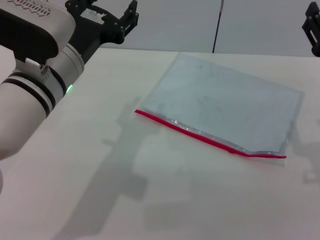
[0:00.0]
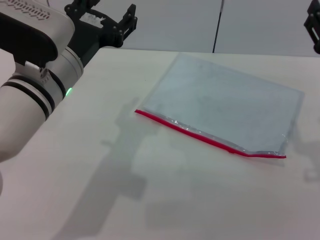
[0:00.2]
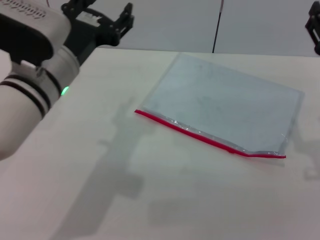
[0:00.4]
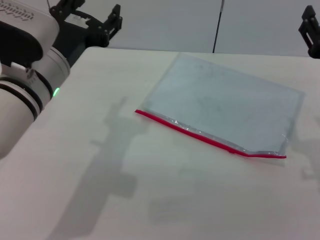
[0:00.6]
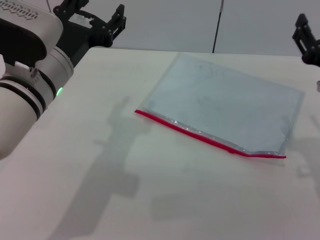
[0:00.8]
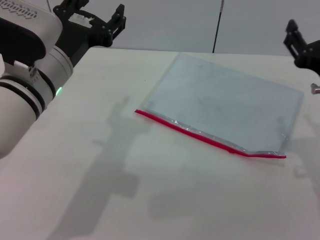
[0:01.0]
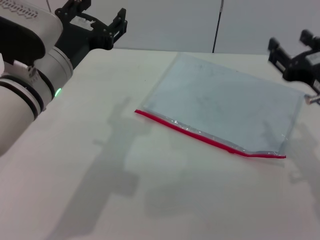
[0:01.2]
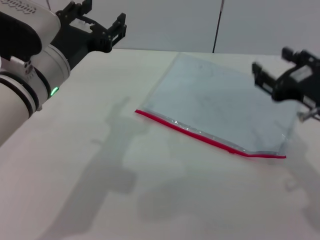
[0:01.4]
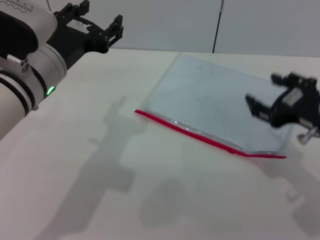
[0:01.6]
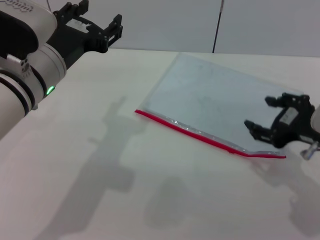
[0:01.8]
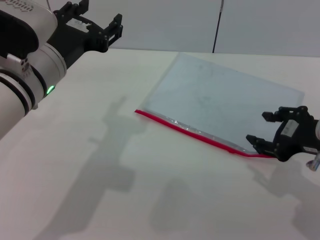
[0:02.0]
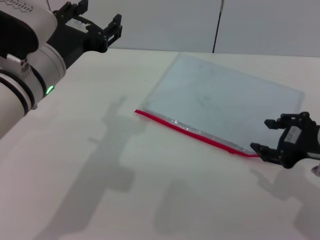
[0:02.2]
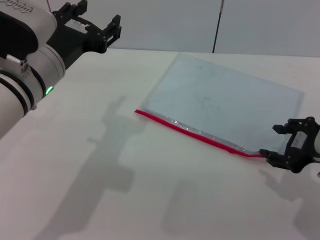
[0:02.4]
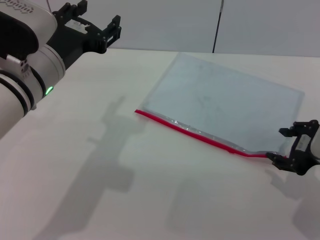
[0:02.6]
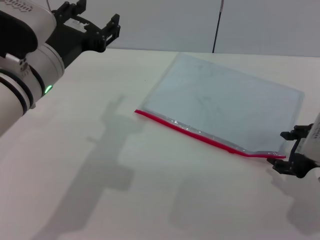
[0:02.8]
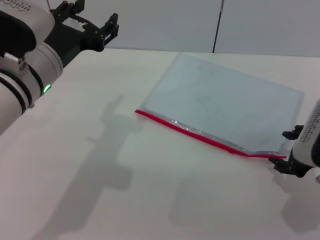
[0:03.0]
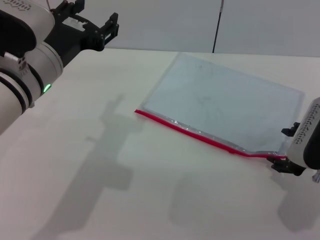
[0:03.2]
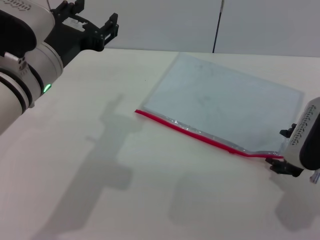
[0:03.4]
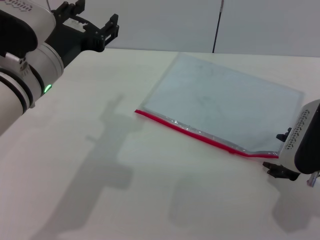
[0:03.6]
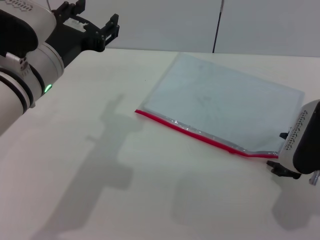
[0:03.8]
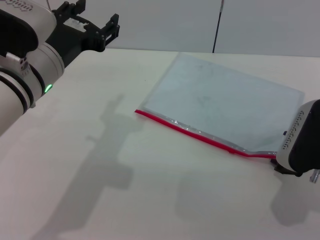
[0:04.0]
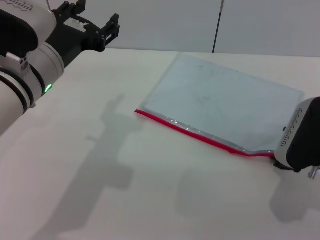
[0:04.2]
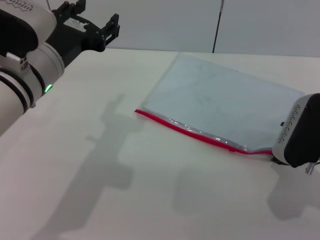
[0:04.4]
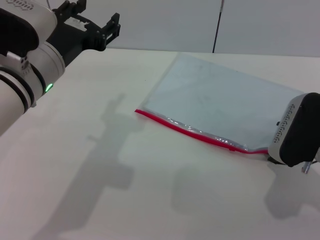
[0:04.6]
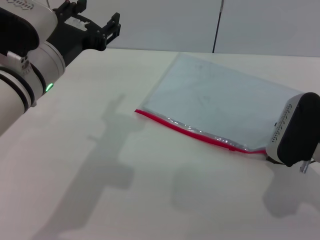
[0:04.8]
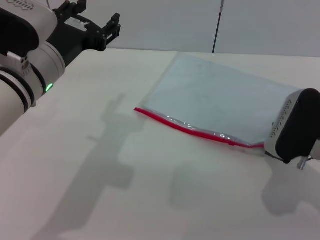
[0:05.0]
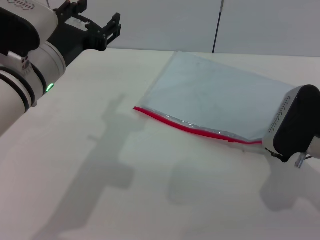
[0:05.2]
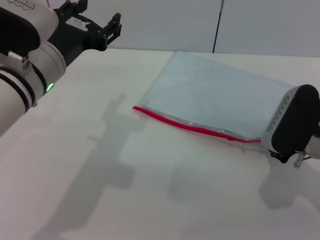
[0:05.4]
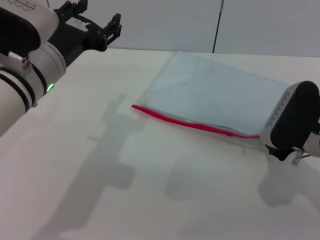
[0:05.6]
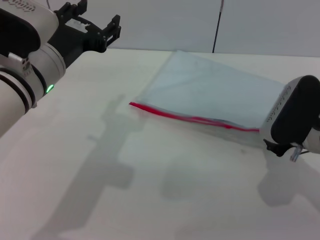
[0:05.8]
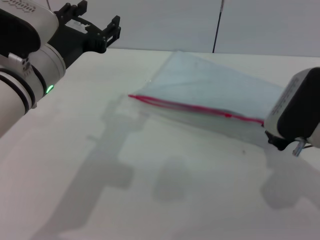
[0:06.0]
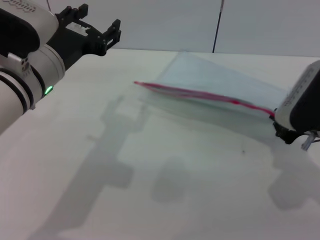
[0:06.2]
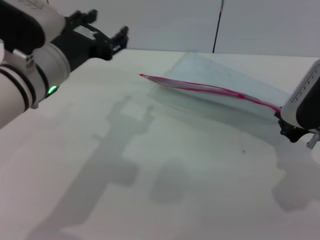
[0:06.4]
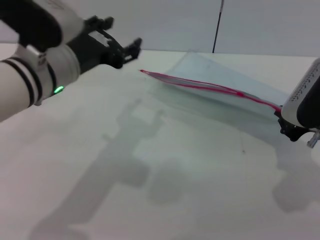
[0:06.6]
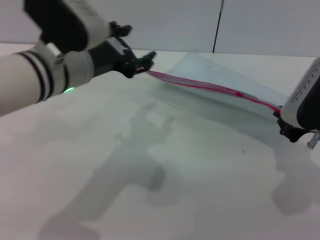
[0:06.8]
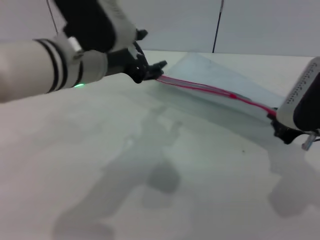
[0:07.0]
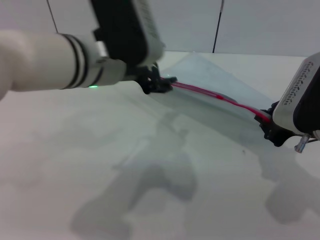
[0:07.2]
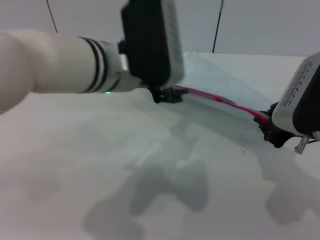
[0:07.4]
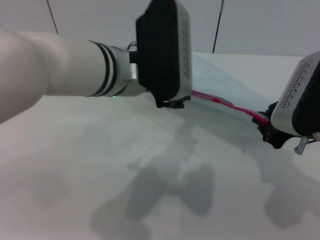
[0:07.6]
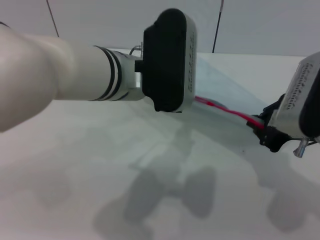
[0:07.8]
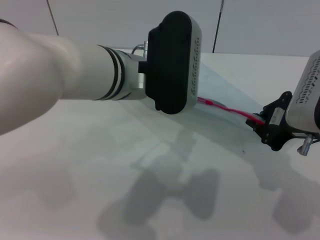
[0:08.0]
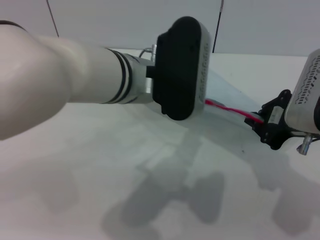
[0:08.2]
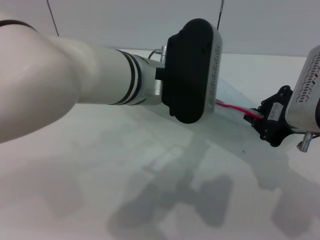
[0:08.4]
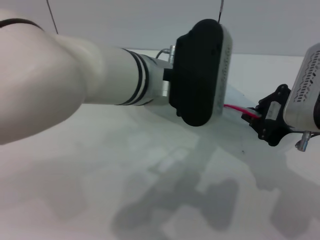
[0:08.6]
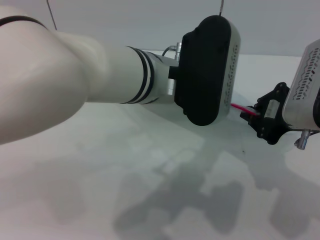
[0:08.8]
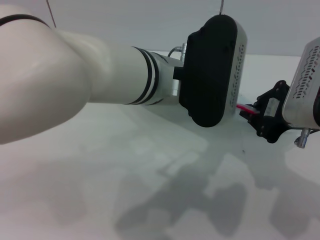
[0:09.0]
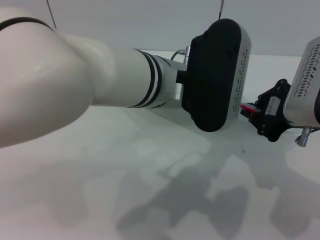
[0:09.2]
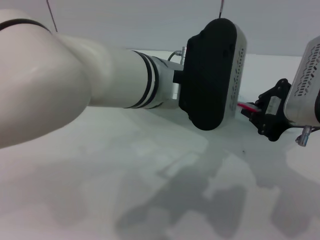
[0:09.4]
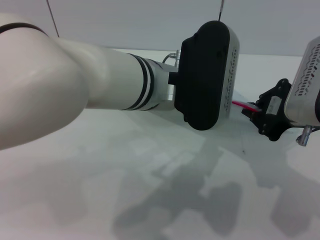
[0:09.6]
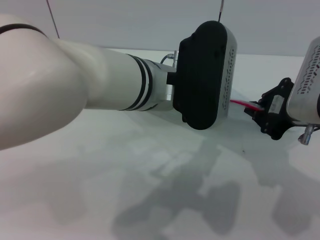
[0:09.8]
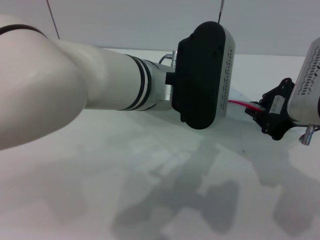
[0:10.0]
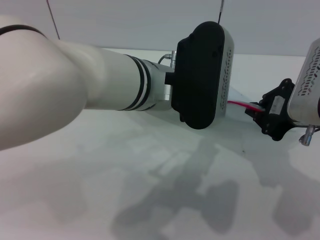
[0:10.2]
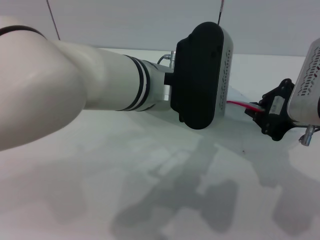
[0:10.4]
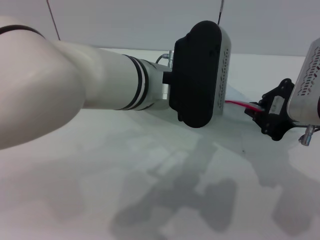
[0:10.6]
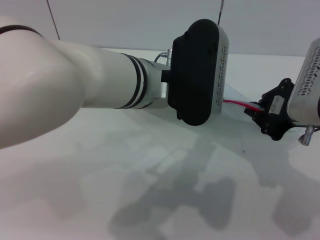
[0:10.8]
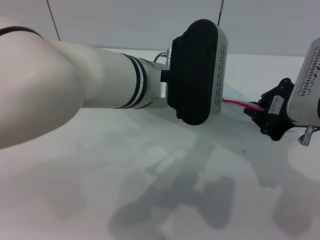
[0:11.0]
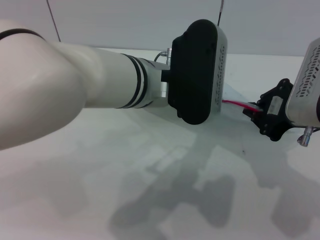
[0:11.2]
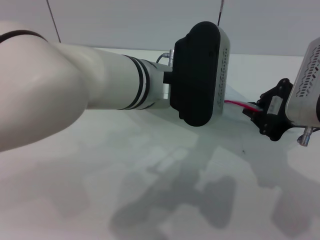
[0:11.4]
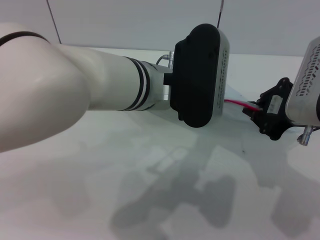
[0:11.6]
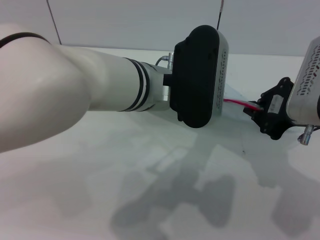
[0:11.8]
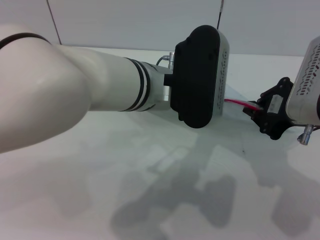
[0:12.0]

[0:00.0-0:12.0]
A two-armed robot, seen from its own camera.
Step, 0:00.0 to 0:07.8: Pick up the transparent plastic bag with the right gripper.
0:03.0 to 0:04.4: The grippers move only a little.
0:04.4 to 0:06.0: The right gripper closes up.
0:06.0 to 0:07.6: The left gripper is displaced to the right by about 10 cm. Meanwhile the right gripper ends up approximately 5 cm from where it was.
0:09.0 to 0:10.4: Neither gripper changes place.
0:10.4 to 0:12.0: Both grippers stay about where they are.

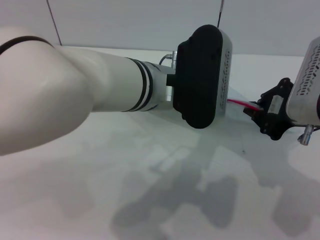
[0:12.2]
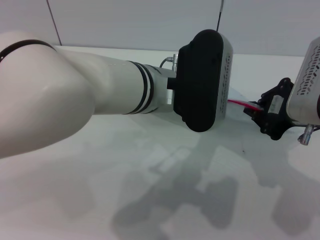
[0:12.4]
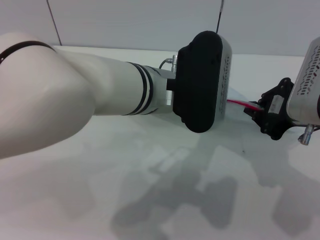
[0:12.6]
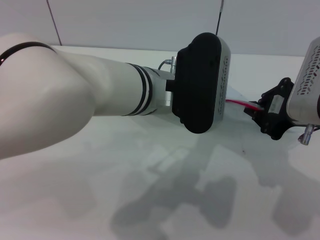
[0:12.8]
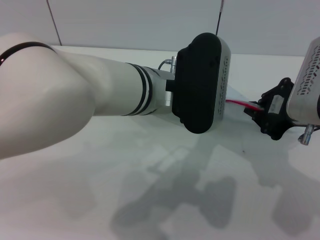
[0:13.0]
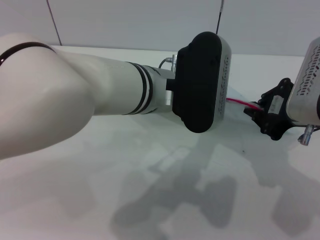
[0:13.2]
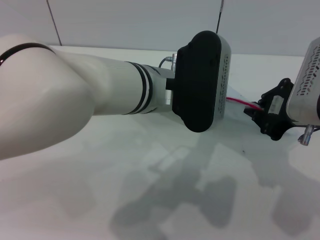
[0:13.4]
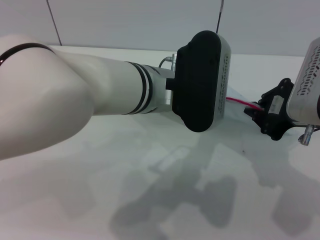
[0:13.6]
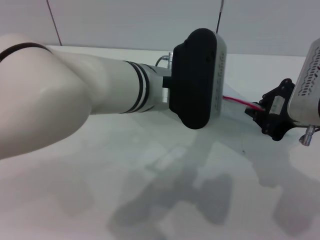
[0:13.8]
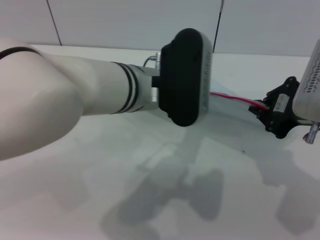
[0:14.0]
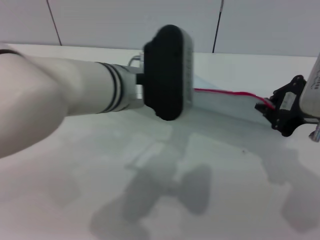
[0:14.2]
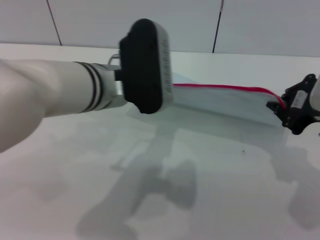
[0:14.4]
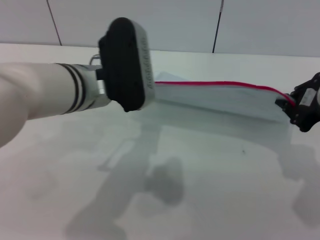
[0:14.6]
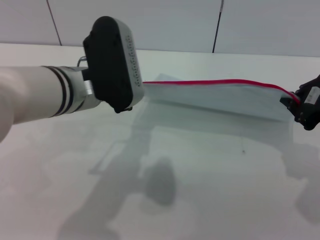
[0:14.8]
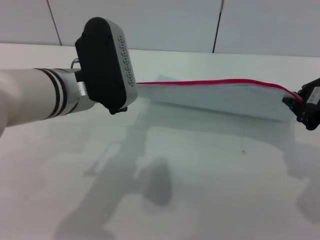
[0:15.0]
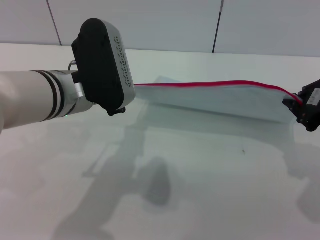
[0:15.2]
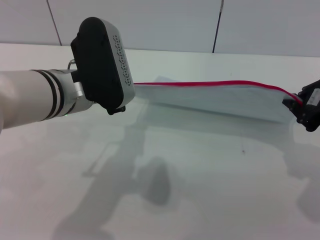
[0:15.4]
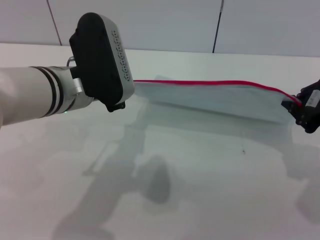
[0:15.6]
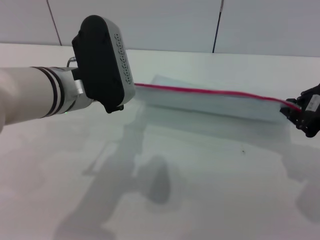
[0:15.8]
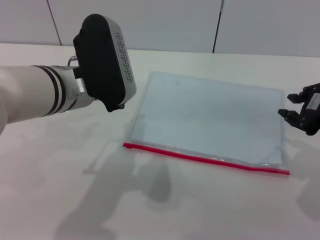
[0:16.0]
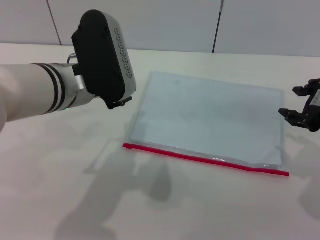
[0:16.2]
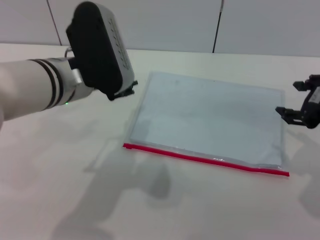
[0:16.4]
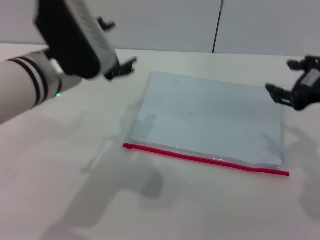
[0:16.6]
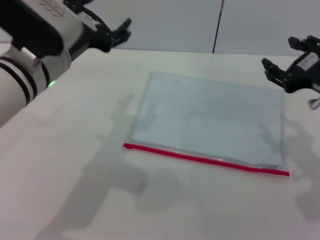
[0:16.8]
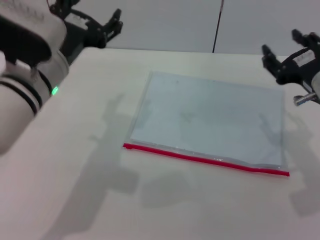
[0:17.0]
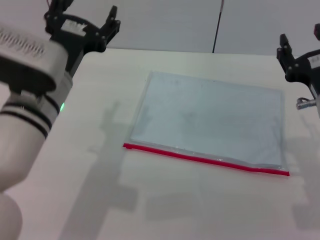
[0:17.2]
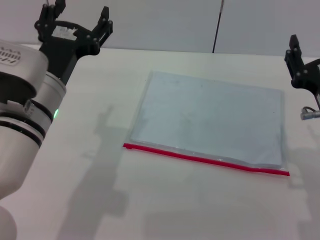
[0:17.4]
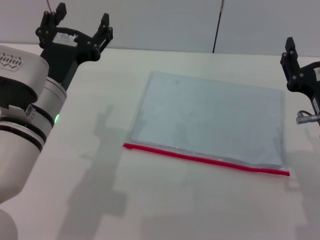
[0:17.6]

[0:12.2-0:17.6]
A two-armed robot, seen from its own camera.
Step, 0:12.2 to 0:15.6: Pulling up the zipper on the transparent plastic bag with the left gripper to close it.
Step, 0:16.0 to 0:16.4: Place the transparent plastic bag.
0:12.2 to 0:13.6: Neither gripper changes place.
0:13.6 to 0:15.0: The left gripper goes approximately 10 cm to the left.
0:15.0 to 0:16.2: The right gripper opens.
0:16.2 to 0:17.6: The right gripper heads downward, backward and to the left, covering some 10 cm, and opens up; the left gripper changes place by some 5 cm, and opens up.

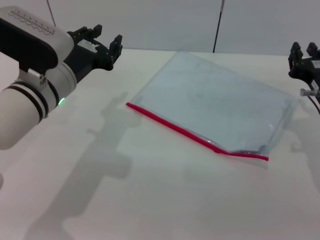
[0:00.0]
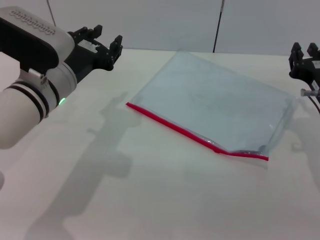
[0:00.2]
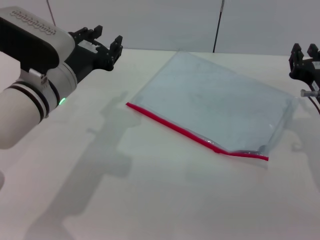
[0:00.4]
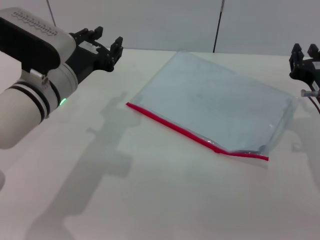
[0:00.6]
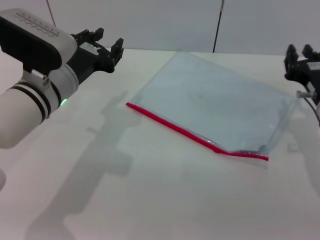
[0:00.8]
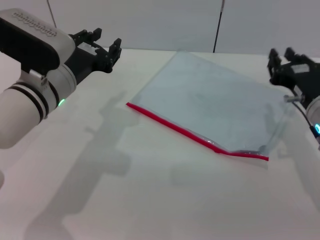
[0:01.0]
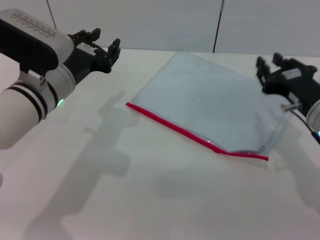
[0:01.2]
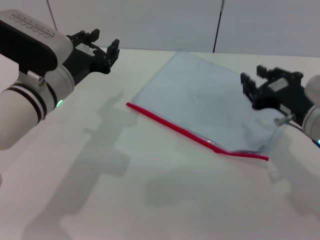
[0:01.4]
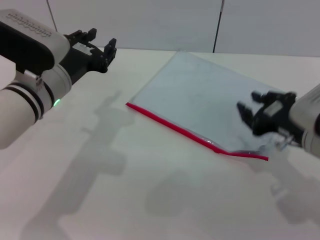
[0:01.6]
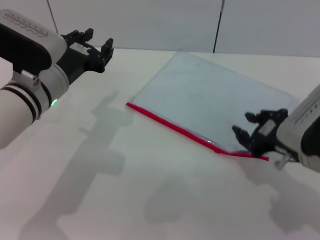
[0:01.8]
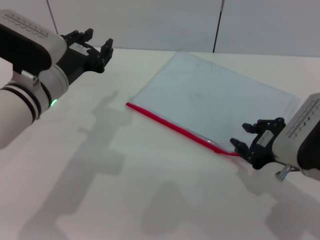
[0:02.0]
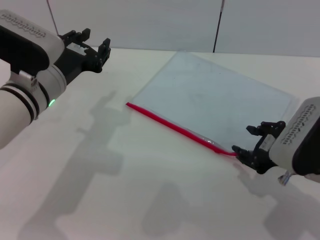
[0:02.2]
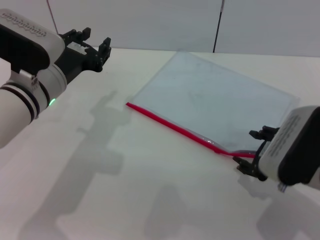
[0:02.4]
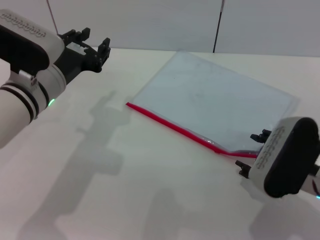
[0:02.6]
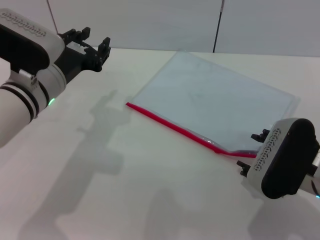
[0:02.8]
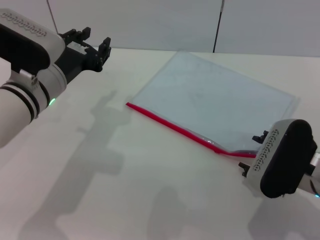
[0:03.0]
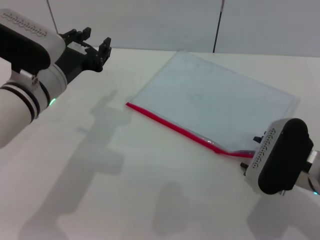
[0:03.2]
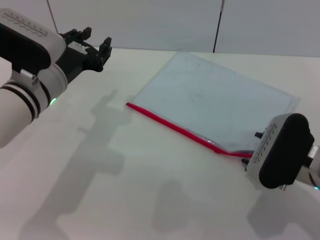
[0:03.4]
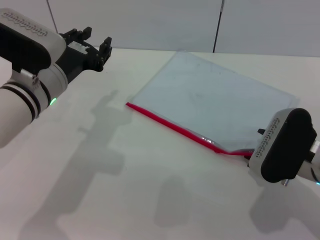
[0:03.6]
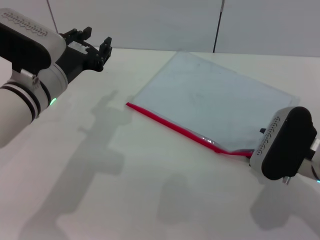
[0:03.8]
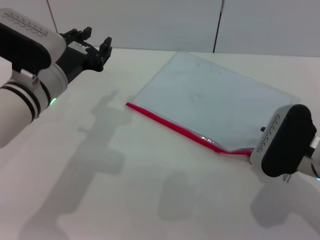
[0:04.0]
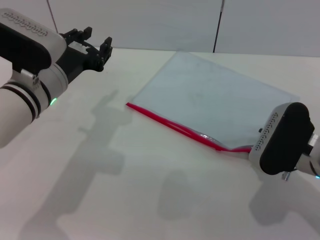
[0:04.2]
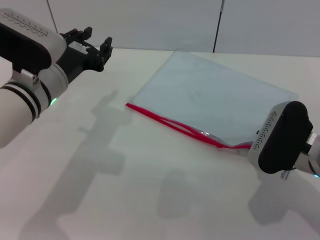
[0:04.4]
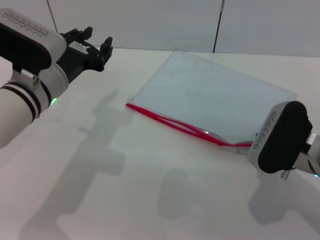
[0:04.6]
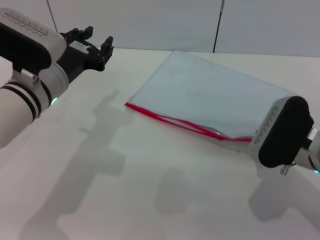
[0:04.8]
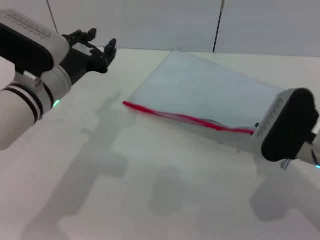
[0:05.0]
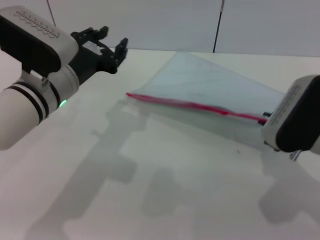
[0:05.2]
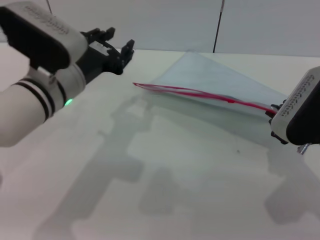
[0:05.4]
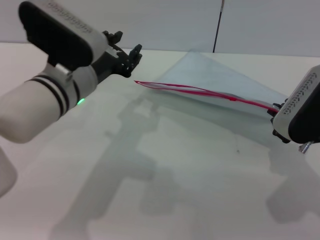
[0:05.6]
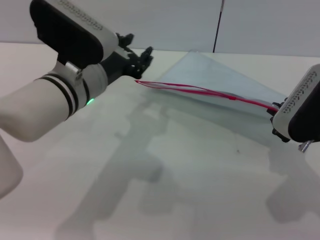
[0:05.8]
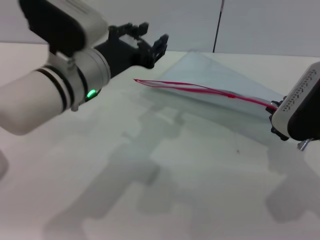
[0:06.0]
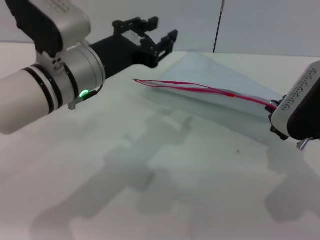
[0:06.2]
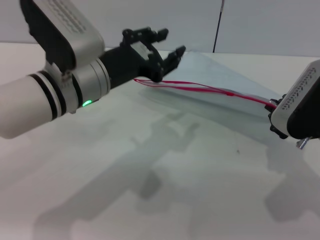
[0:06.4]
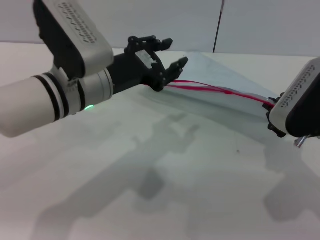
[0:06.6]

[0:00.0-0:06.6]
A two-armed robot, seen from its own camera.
Step, 0:00.0 to 0:06.0: Pick up the transparent plastic bag with the right gripper.
0:00.0 to 0:01.6: The right gripper shifts by roughly 5 cm.
0:01.6 to 0:03.2: The right gripper opens.
0:03.2 to 0:05.0: The right gripper closes its fingers.
0:05.0 to 0:06.6: The left gripper changes place by roughly 5 cm.
